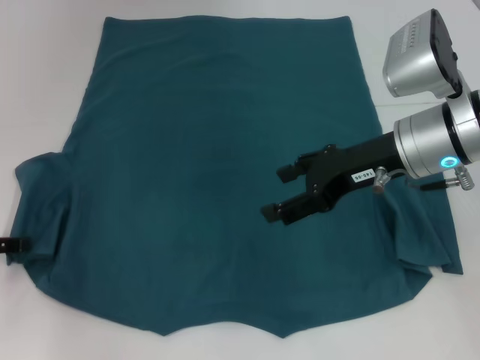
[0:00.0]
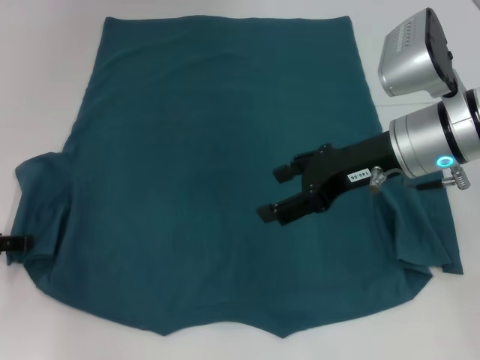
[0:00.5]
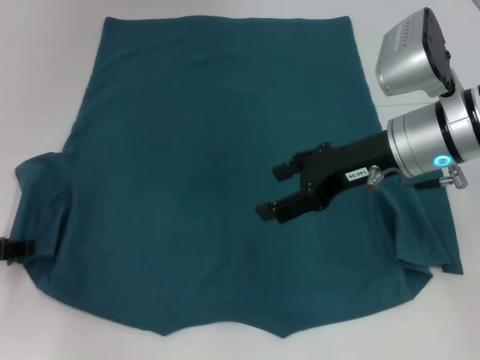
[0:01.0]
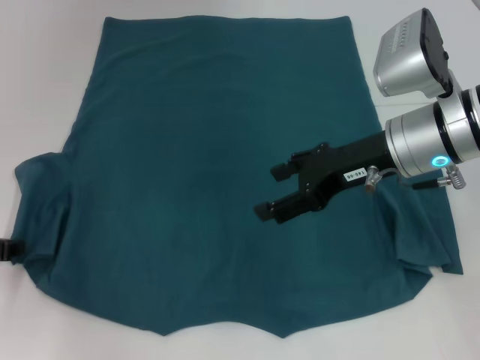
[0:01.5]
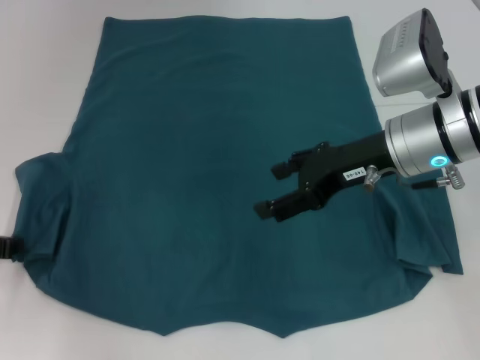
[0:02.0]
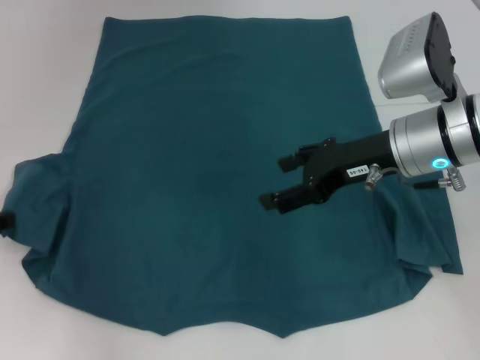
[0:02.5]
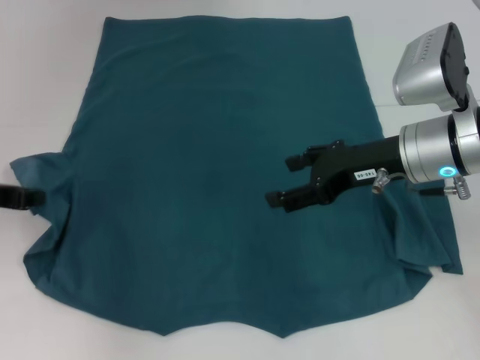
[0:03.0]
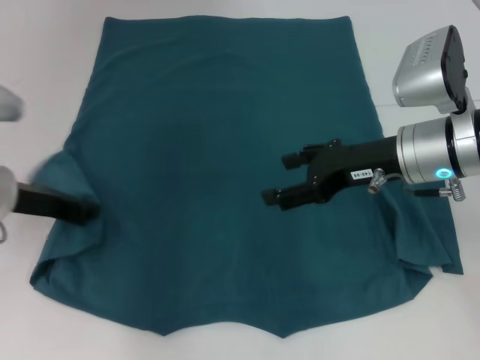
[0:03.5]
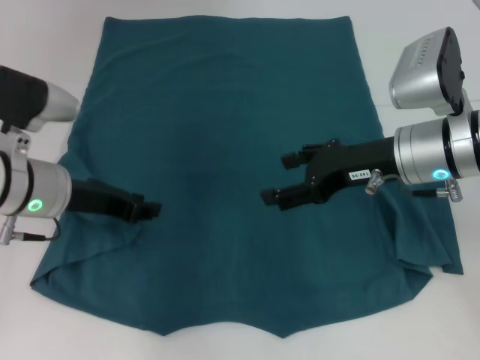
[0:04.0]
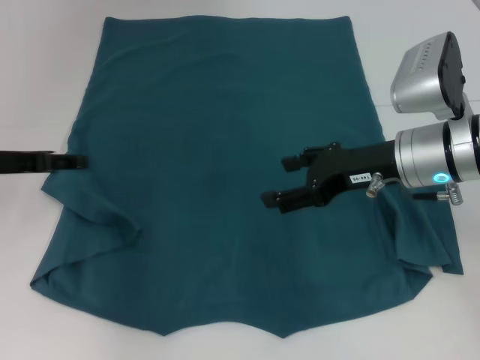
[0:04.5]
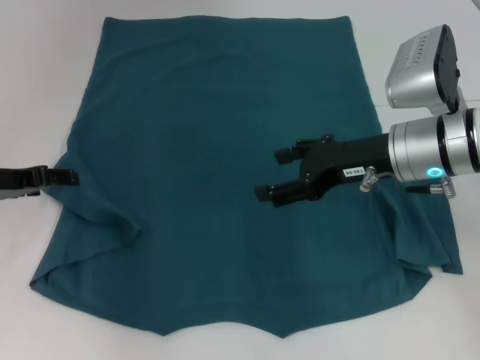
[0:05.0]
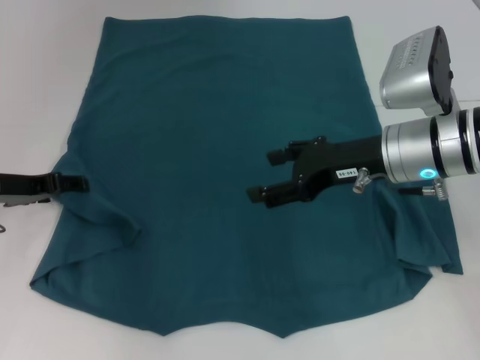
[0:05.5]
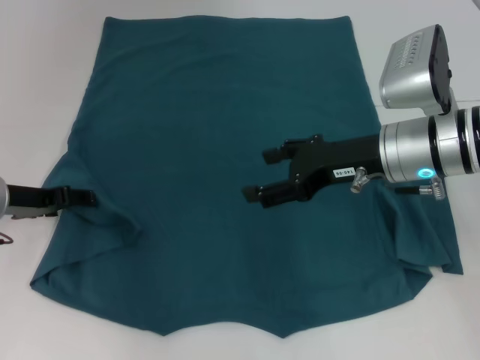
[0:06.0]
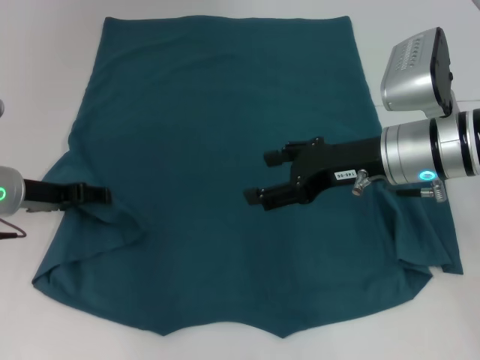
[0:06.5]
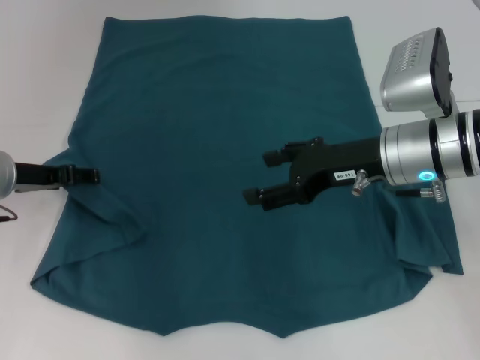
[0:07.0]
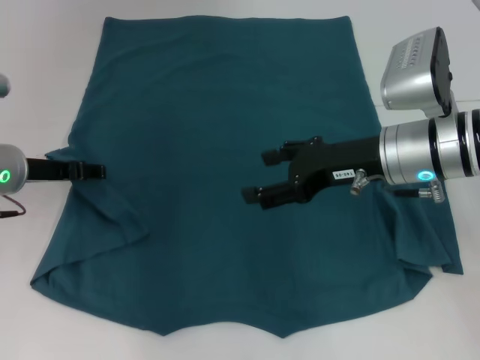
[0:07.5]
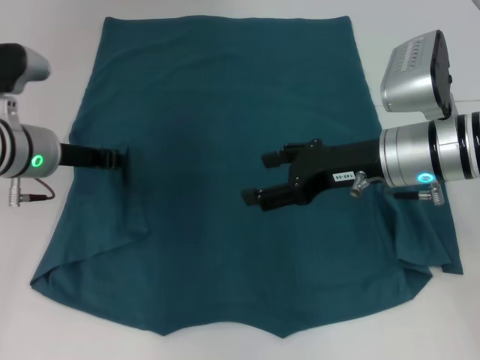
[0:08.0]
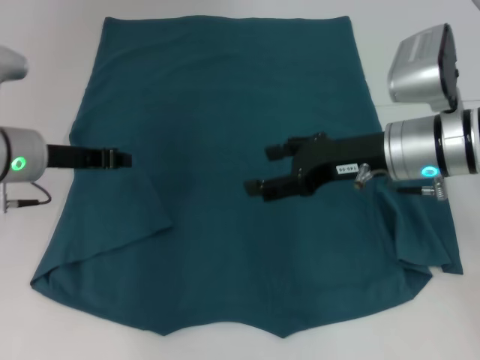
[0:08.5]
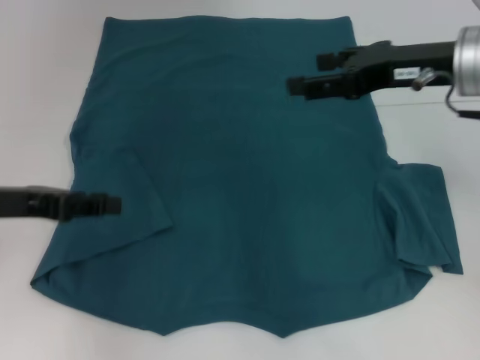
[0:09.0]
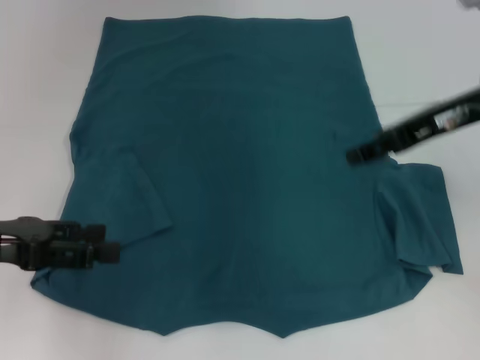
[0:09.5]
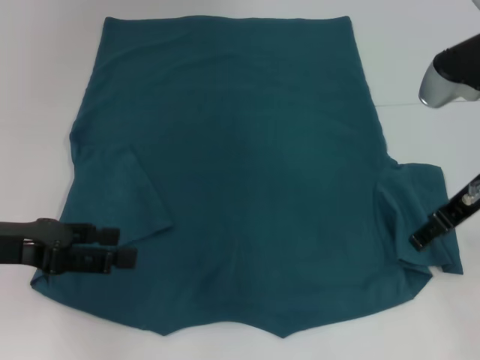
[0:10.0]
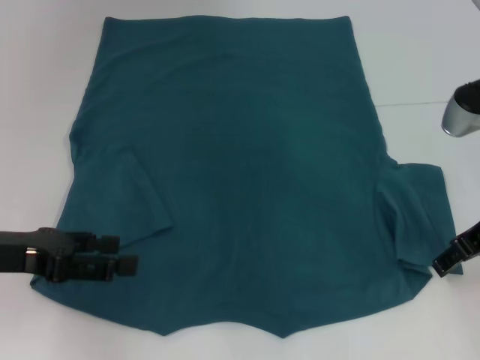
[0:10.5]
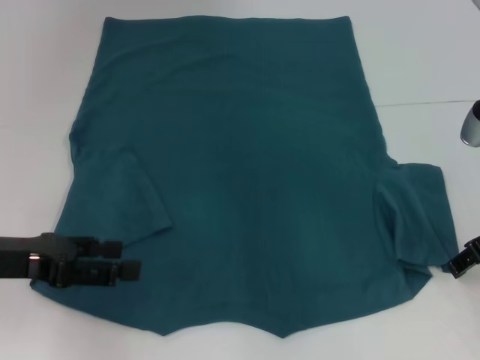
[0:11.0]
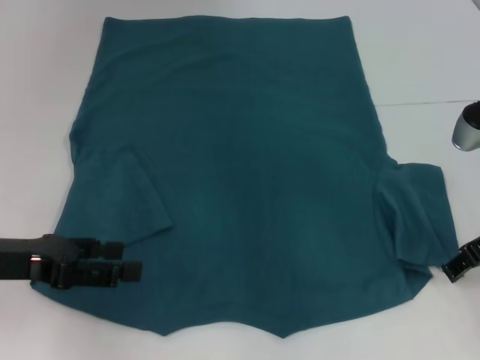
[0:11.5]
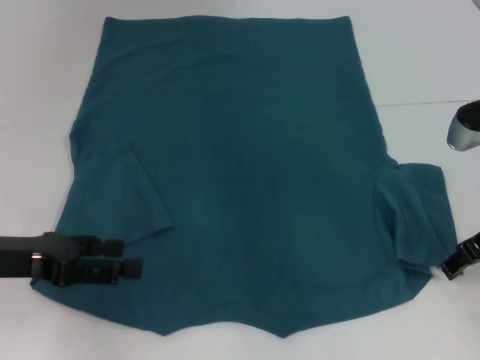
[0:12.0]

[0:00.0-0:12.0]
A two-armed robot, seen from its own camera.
Step, 0:00.0 to 0:08.0: Fold the bottom left sleeve with your left hand.
0:00.0 to 0:02.0: The left gripper closes its fingers.
0:02.0 to 0:04.0: The left gripper heads to the right, covering roughly 15 cm.
0:04.0 to 0:06.0: The left gripper goes roughly 5 cm to the left, and opens up.
0:06.0 to 0:08.0: The left gripper heads to the right, covering some 5 cm, and closes up.
0:08.0 to 0:10.0: The left gripper goes roughly 15 cm backward and to the left, and opens its fingers; the right gripper goes some 5 cm to the right and upward.
0:10.0 to 0:12.0: The right gripper shifts some 5 cm downward.

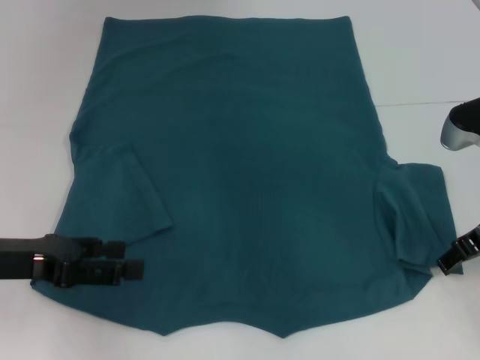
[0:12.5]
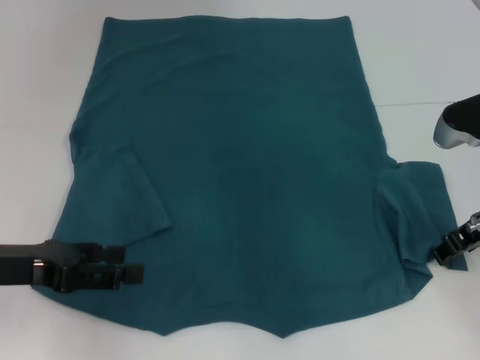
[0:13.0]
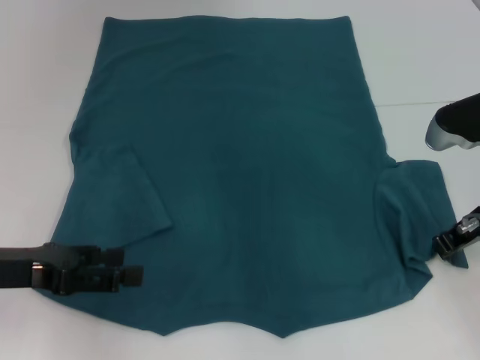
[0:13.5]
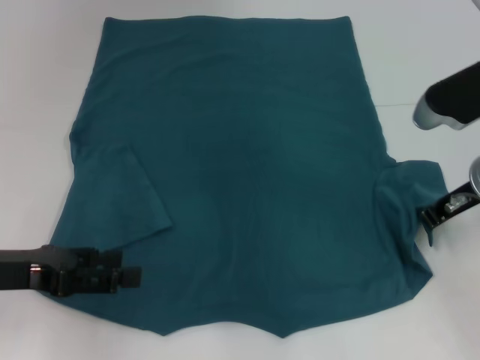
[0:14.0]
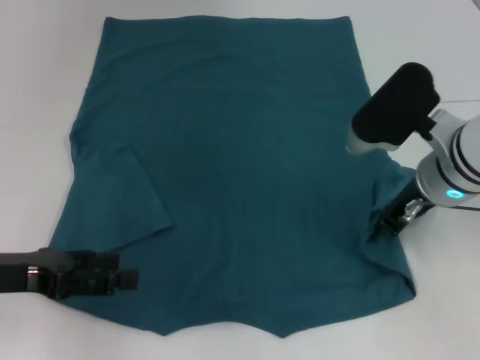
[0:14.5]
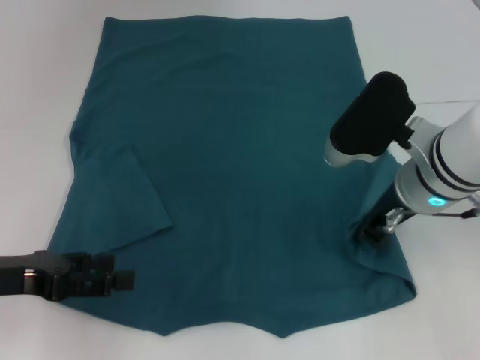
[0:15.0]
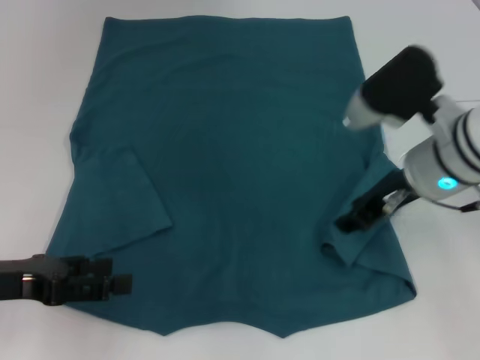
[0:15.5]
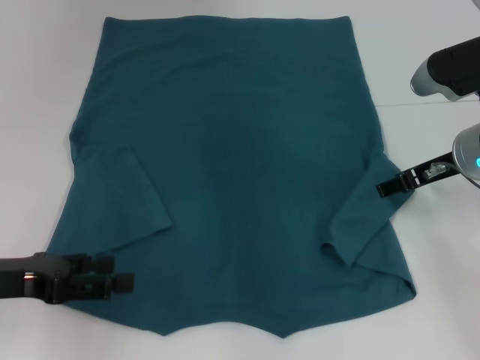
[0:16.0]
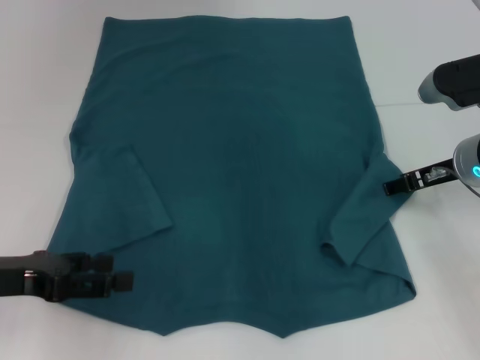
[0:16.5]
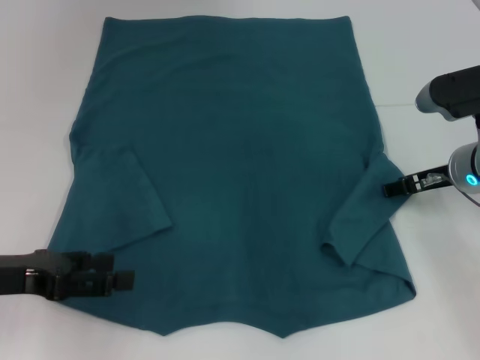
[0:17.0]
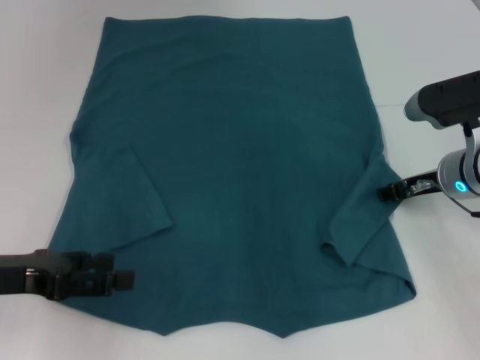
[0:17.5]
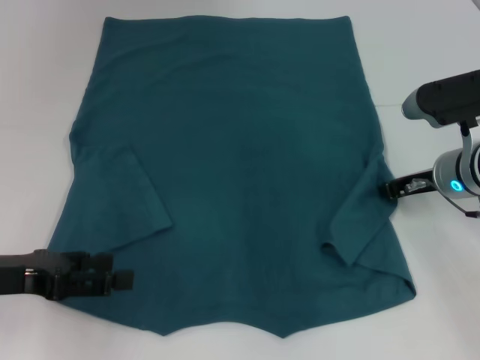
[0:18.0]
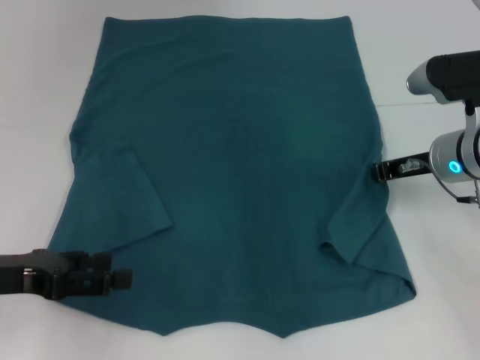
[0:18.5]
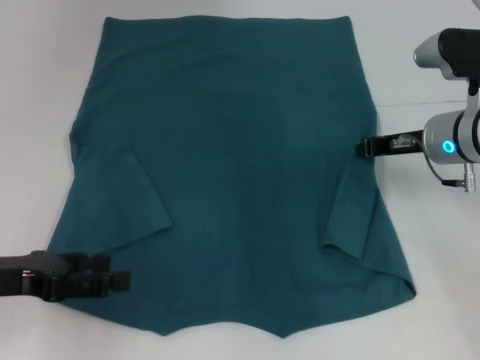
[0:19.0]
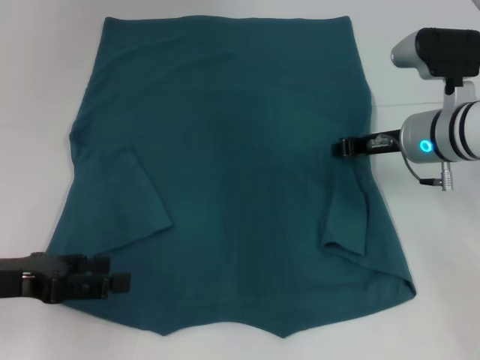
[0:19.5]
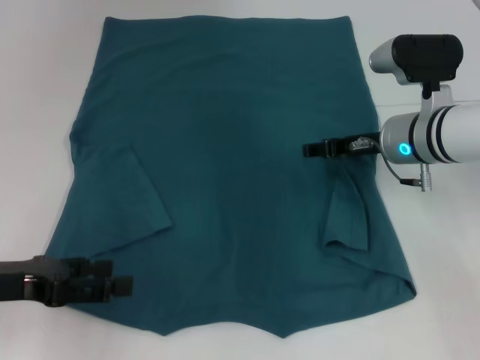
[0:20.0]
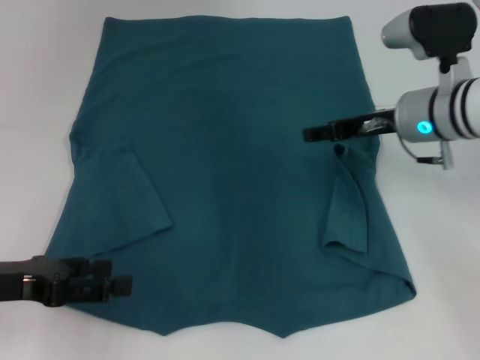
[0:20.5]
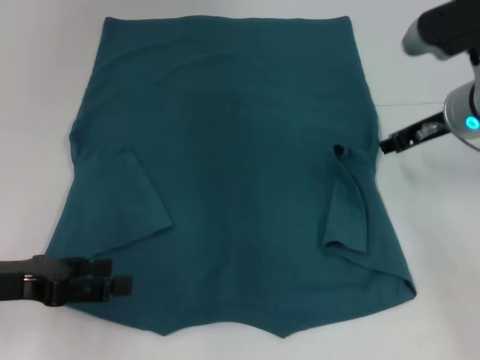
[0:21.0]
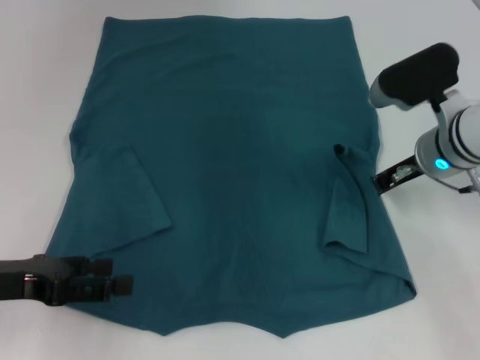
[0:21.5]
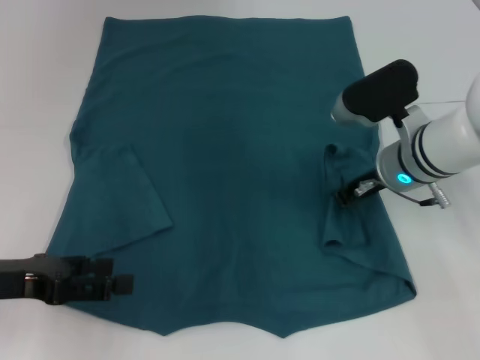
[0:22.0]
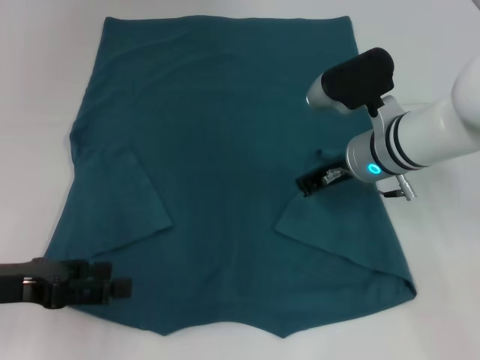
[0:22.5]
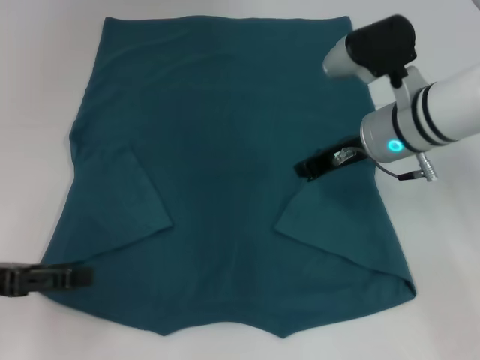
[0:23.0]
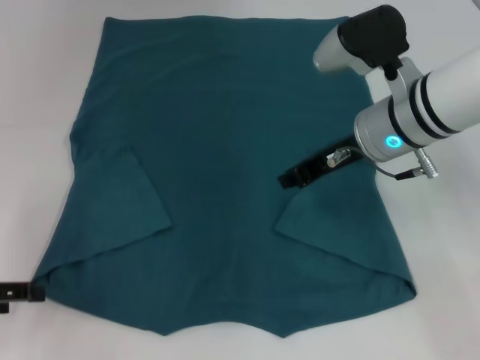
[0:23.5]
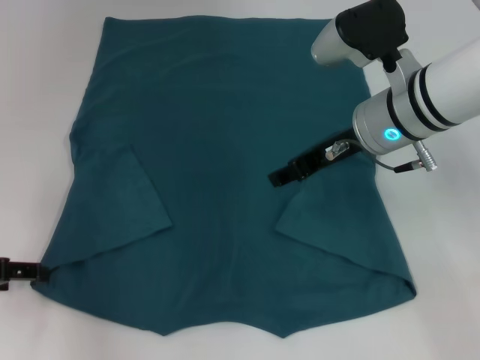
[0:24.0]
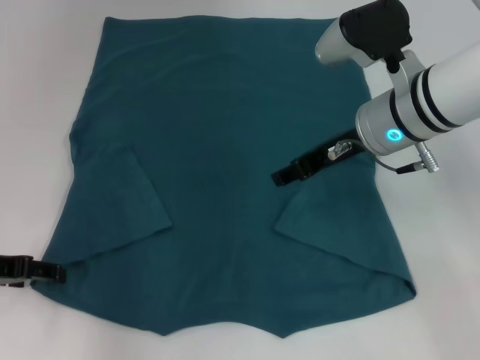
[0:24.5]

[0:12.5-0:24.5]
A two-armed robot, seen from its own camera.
Step, 0:12.5 to 0:23.0: Fold the bottom right sleeve to the right.
0:12.5 to 0:14.5: The right gripper travels to the left by roughly 10 cm, and closes its fingers.
0:14.5 to 0:16.5: The right gripper moves to the right, approximately 5 cm, and opens up.
0:16.5 to 0:18.5: The right gripper closes up.
0:18.5 to 0:20.5: The right gripper changes place by approximately 5 cm, and opens.
0:20.5 to 0:22.5: The right gripper shifts roughly 5 cm to the left, and closes its fingers.
0:22.5 to 0:24.5: The right gripper travels upward by some 5 cm, and opens up.

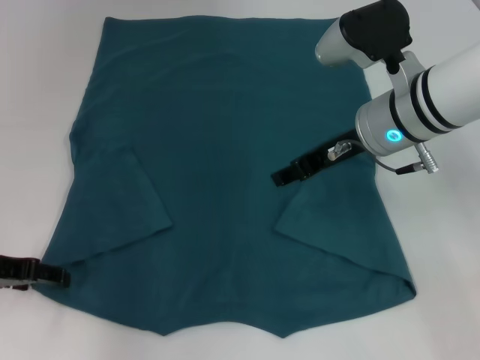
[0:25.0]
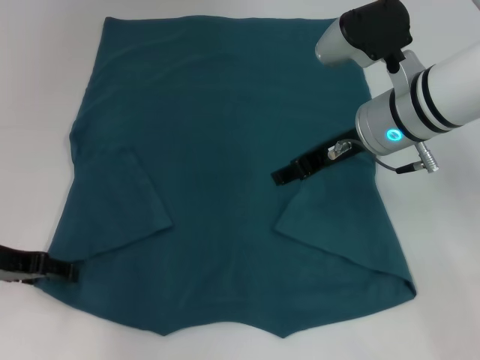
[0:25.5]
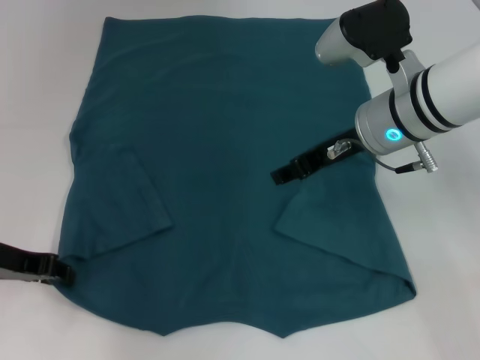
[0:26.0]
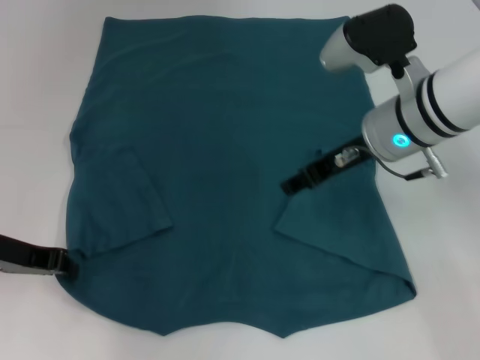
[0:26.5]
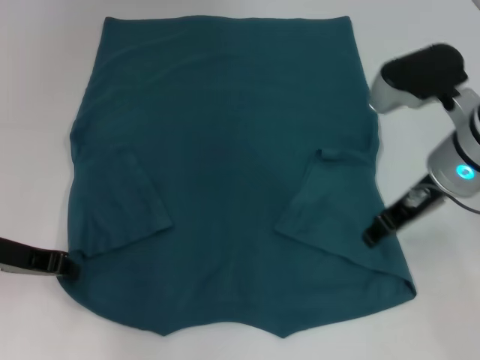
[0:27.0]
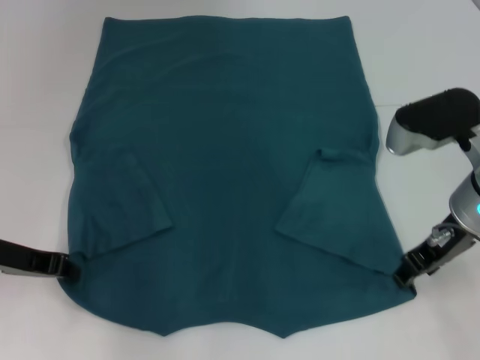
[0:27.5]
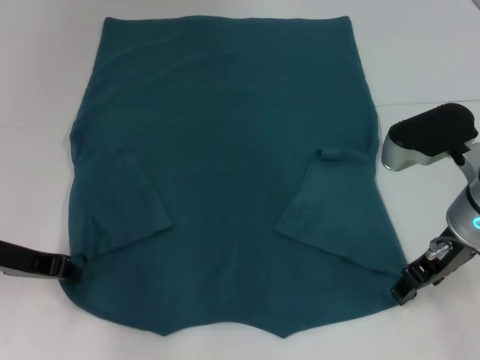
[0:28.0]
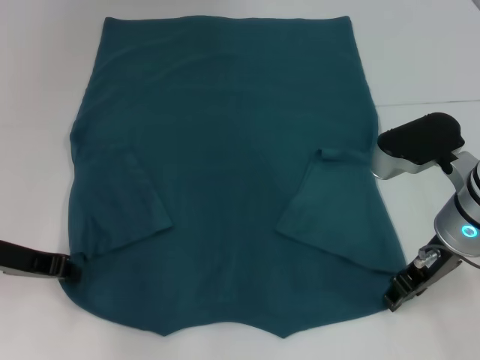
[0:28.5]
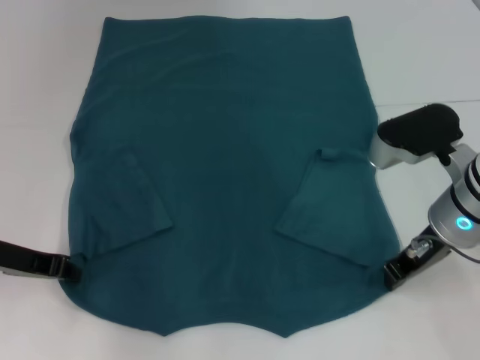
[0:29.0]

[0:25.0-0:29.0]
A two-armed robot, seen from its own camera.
0:25.0 to 0:27.0: The left gripper closes its fingers. Meanwhile the right gripper moves roughly 5 cm.
0:27.0 to 0:29.0: The right gripper closes its fingers.
